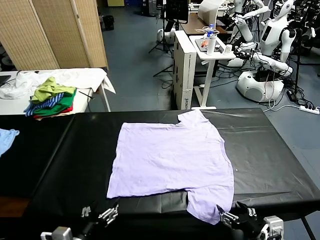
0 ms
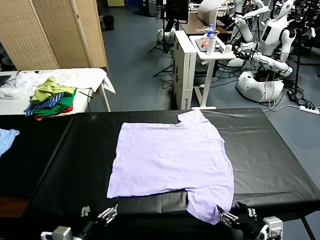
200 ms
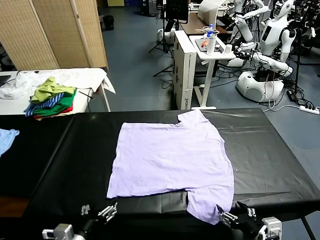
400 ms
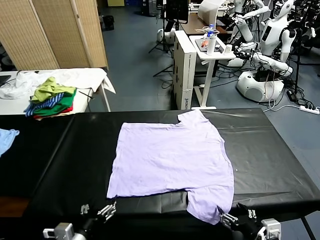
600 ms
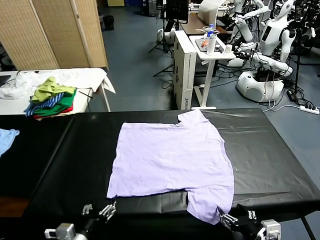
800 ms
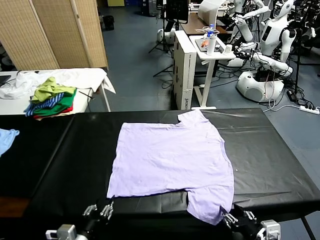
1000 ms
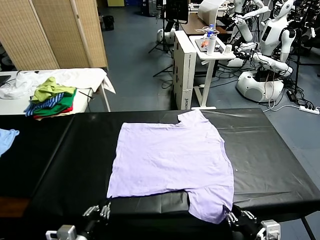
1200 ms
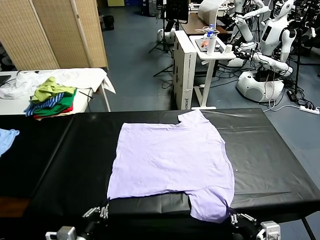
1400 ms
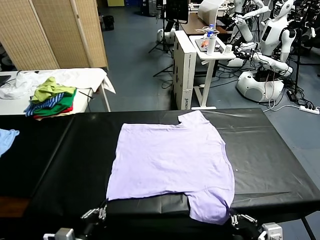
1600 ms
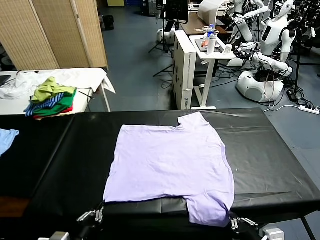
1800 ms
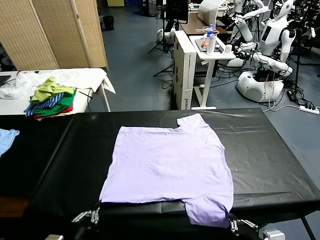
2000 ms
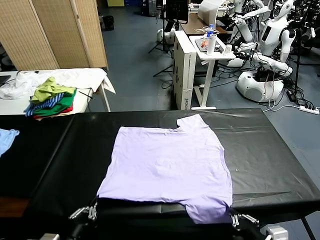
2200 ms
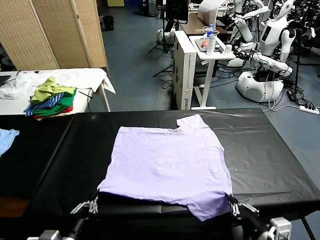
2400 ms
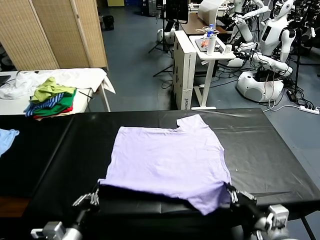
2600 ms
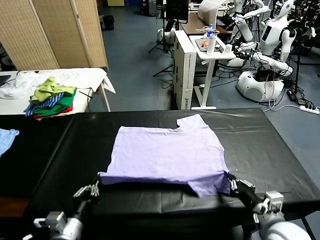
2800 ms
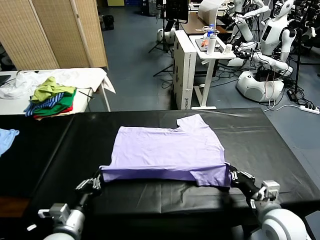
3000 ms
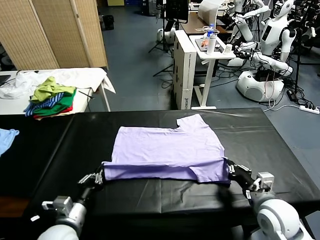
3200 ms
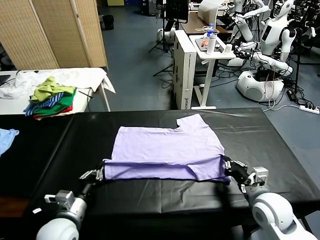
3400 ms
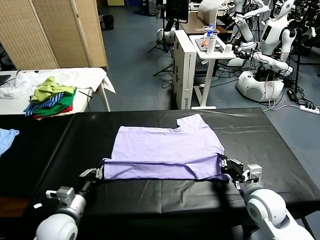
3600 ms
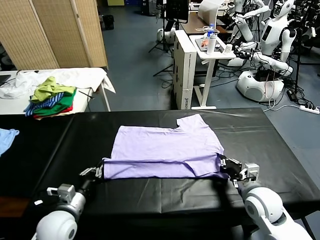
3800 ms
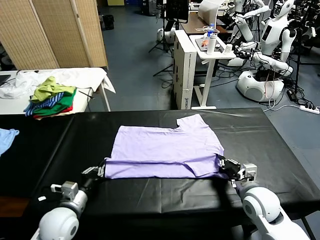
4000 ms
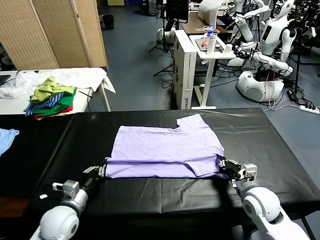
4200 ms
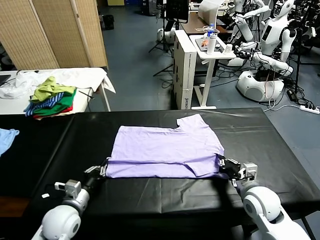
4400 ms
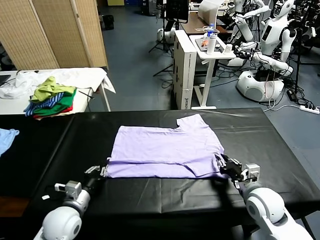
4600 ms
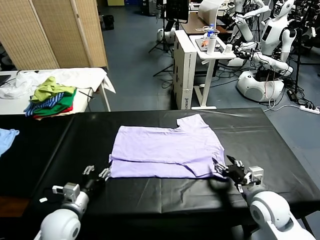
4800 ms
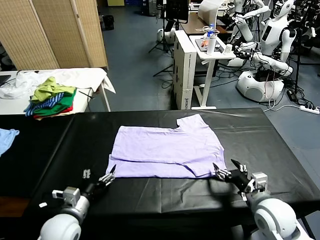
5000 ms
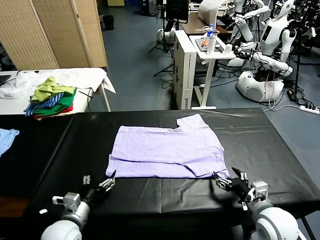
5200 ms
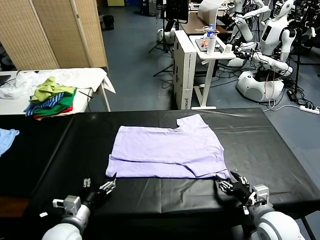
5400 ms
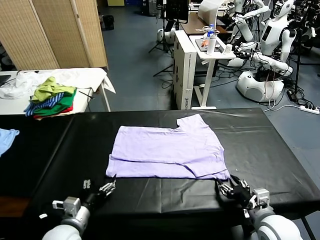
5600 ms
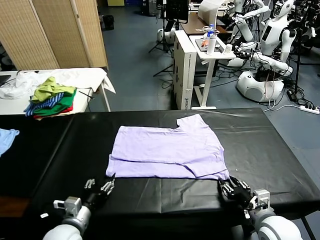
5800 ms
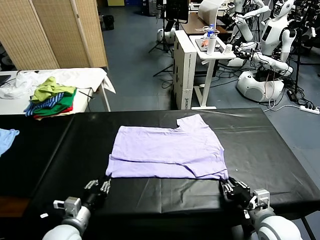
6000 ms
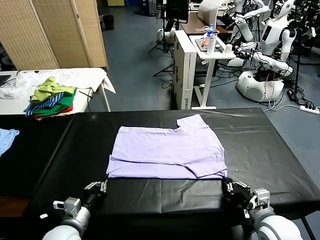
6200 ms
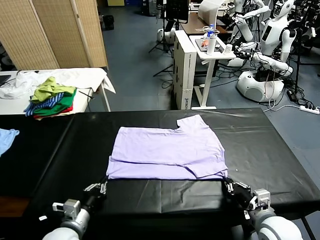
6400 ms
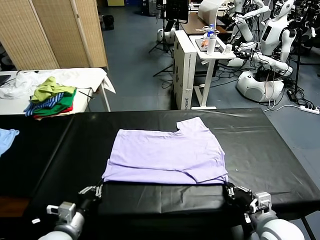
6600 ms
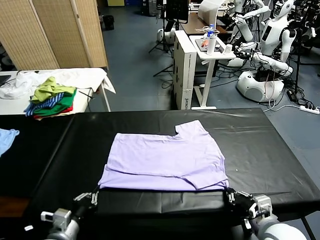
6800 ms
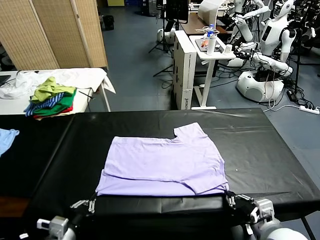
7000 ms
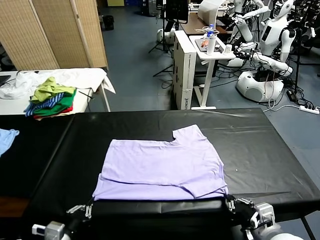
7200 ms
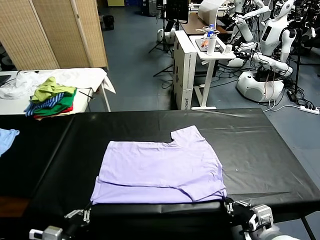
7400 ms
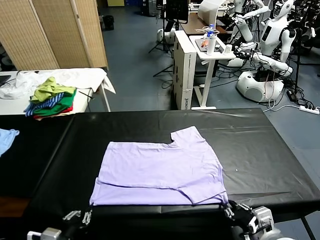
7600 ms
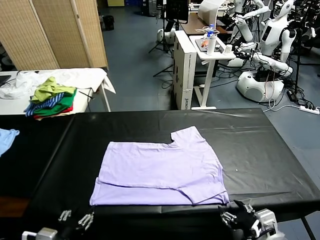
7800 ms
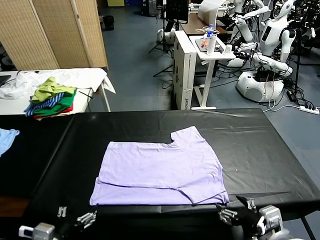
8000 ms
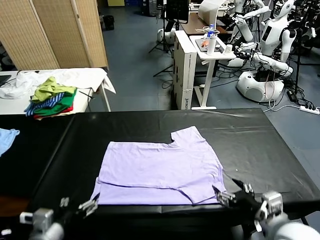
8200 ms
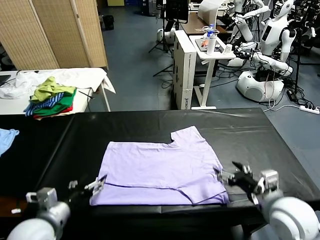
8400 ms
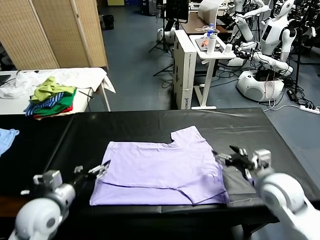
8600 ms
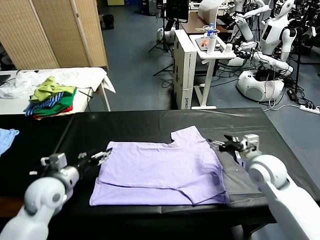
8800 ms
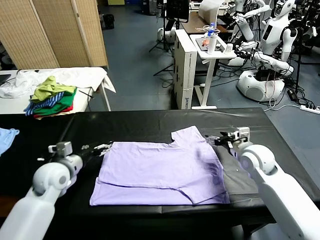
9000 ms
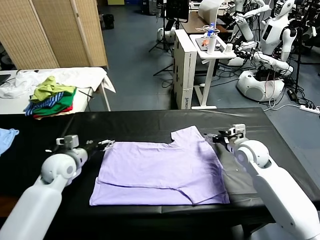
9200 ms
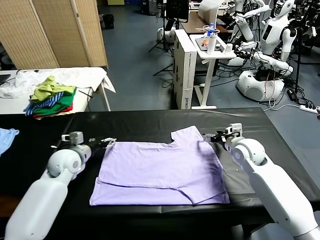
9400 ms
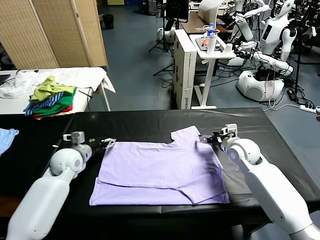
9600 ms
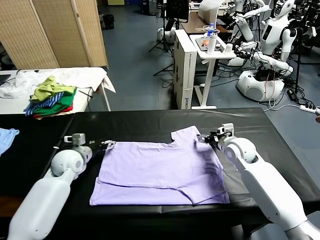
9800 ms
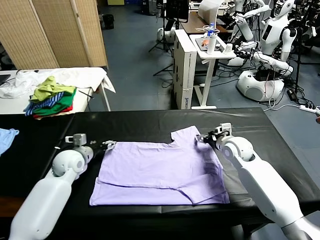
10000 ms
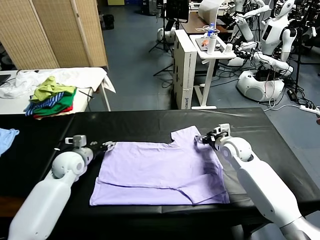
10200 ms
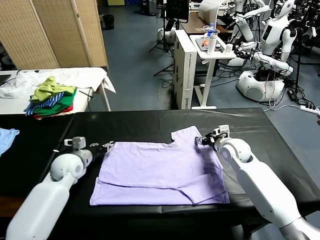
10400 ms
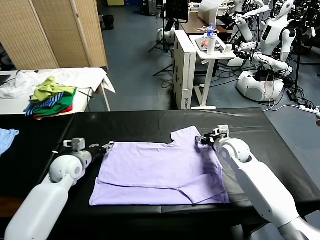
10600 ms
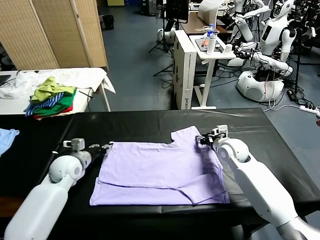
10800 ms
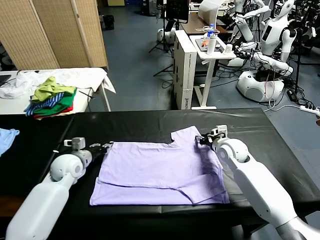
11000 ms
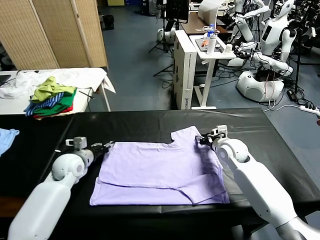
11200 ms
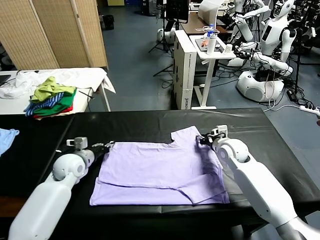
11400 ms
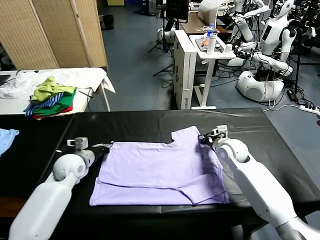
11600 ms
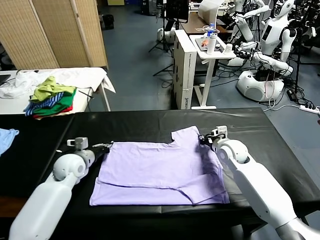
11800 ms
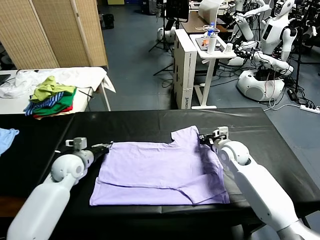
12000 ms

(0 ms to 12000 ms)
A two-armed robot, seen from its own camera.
Task of the whole recording: fold and organize the clothes.
Step, 0 ms - 1800 ms: use both grippers simultaneously to clamp the lower edge of the clothing fabric.
Step, 2000 ms - 4600 ms: use both grippers to drag the lower edge of the fabric forward and fold it over the upper edge.
Step, 4800 ms - 7600 ms: Drag the clothes downward with both gripper.
Step, 8000 ms - 12000 ms: use both grippers simultaneously to clamp the upper edge of the clothing fabric.
1600 ms - 3000 ms: The left gripper moves forward, some 10 cm. Meanwhile the right gripper heads forward, covering about 20 cm.
3000 ms - 4400 ms: The right gripper opens. The left gripper shifts about 5 cm forward.
4400 ms - 6000 ms: The left gripper moves about 5 cm, and opens, then closes again. Meanwhile the right gripper moves backward, roughly 5 cm, and closes its fingers.
6000 ms - 7600 ms: The left gripper shifts about 10 cm backward and upward, and opens up. The right gripper heads upward and backward, covering roughly 10 cm, and opens up.
7600 ms - 9000 ms: Both grippers travel together forward, roughly 30 cm. The left gripper opens up.
9000 ms - 10400 ms: The right gripper changes place by about 5 cm, and closes its fingers; the left gripper closes up.
10400 ms - 12000 ms: The right gripper closes up. Meanwhile the left gripper closes its fingers.

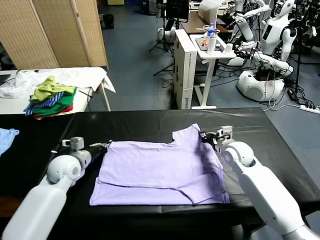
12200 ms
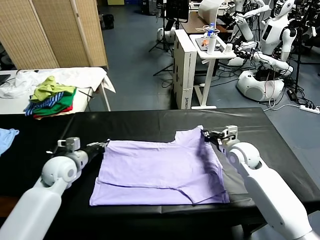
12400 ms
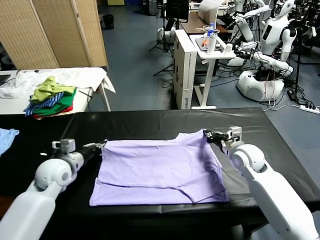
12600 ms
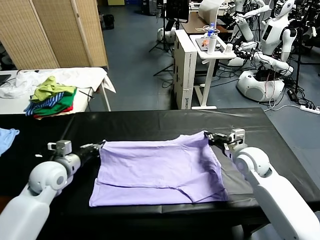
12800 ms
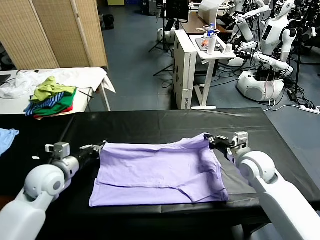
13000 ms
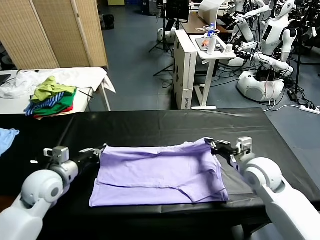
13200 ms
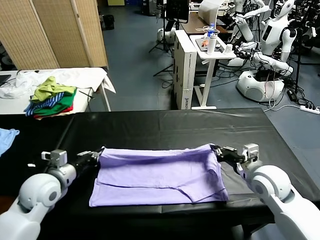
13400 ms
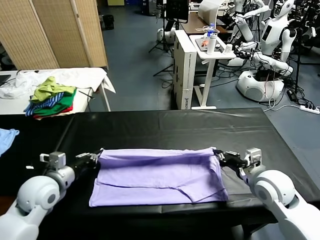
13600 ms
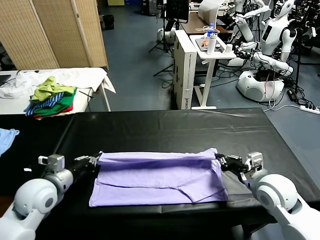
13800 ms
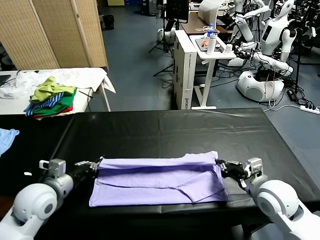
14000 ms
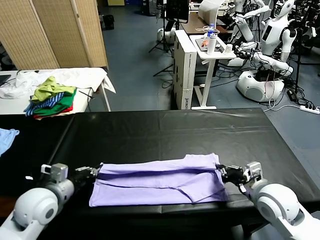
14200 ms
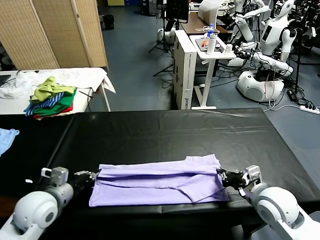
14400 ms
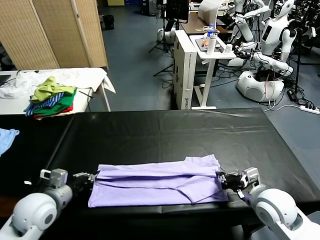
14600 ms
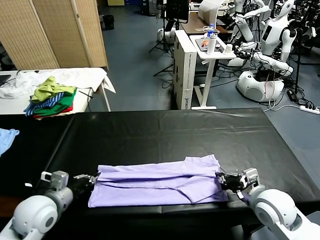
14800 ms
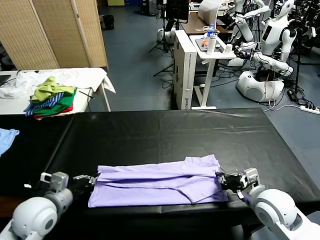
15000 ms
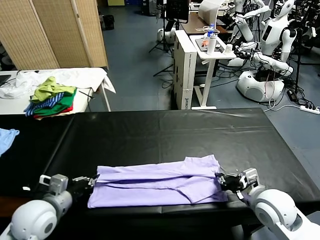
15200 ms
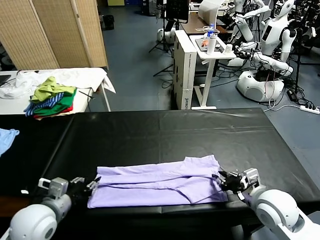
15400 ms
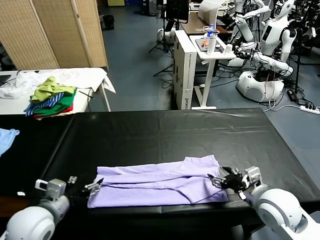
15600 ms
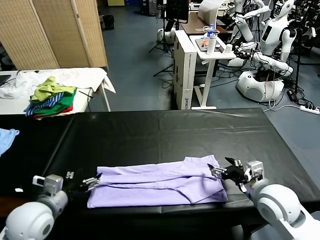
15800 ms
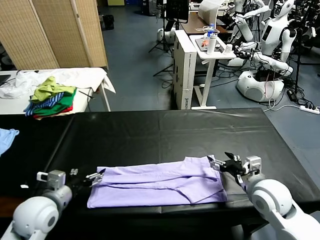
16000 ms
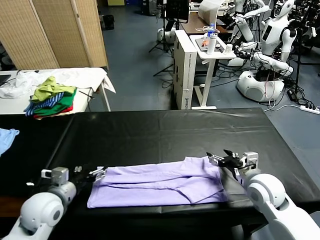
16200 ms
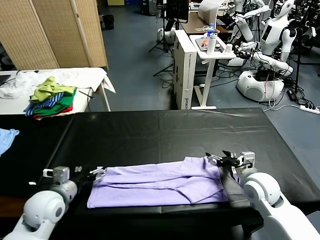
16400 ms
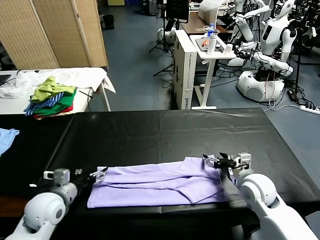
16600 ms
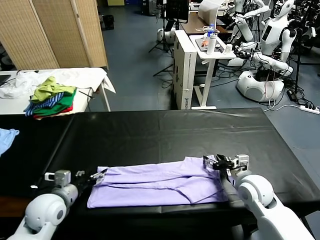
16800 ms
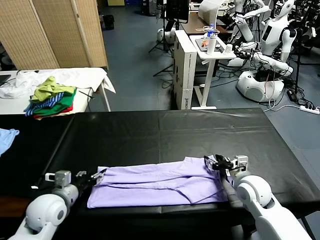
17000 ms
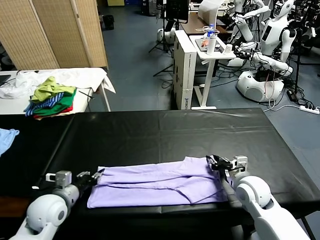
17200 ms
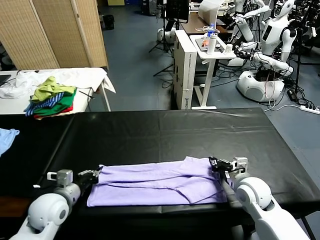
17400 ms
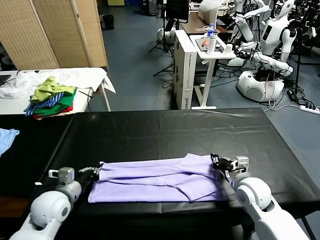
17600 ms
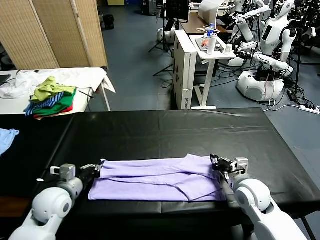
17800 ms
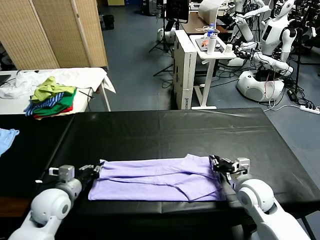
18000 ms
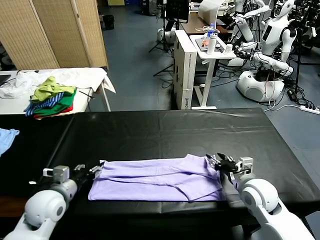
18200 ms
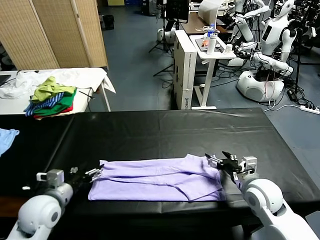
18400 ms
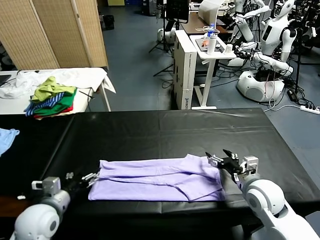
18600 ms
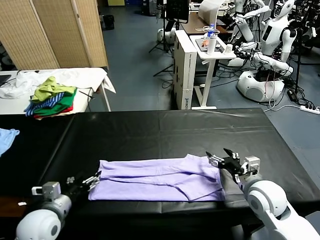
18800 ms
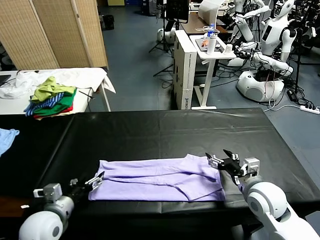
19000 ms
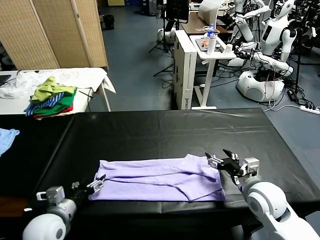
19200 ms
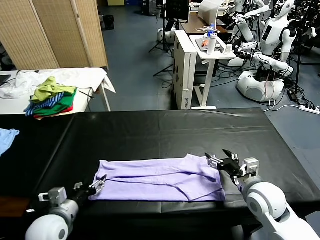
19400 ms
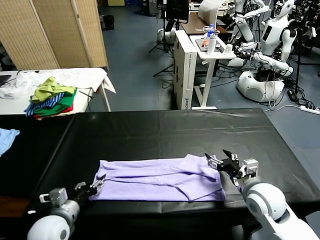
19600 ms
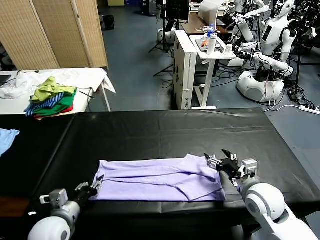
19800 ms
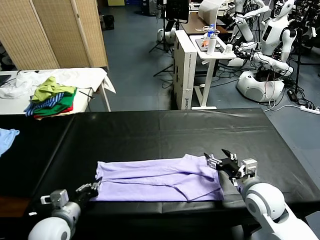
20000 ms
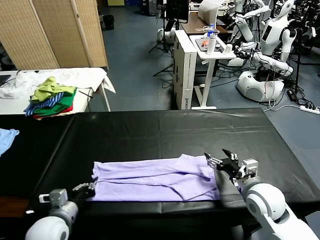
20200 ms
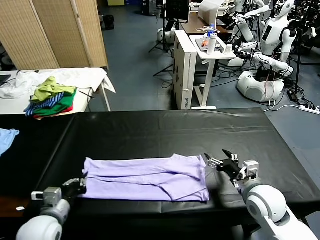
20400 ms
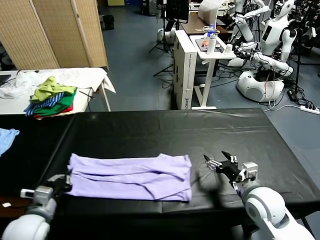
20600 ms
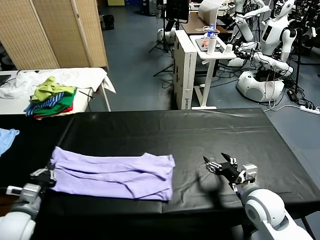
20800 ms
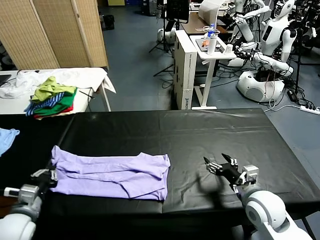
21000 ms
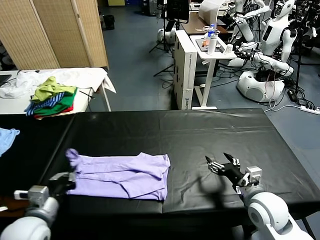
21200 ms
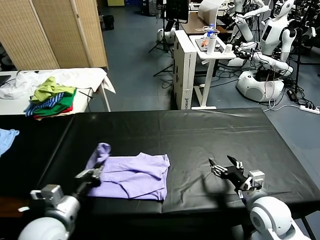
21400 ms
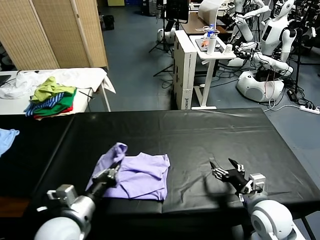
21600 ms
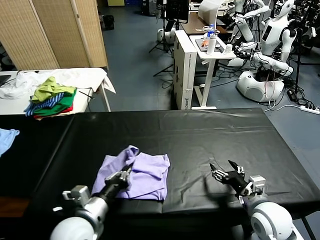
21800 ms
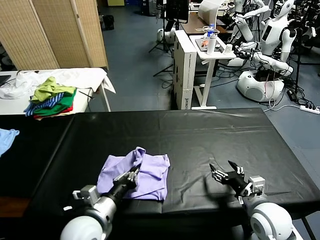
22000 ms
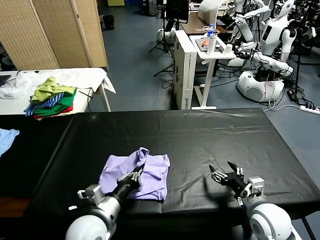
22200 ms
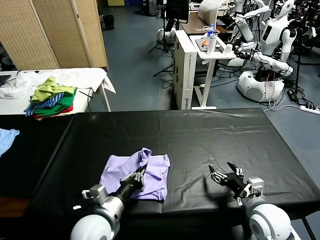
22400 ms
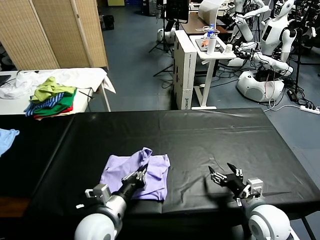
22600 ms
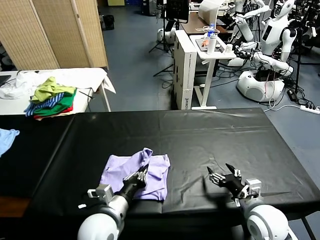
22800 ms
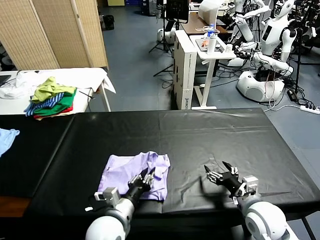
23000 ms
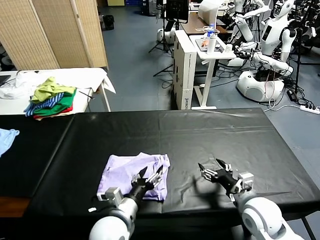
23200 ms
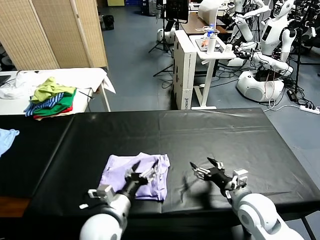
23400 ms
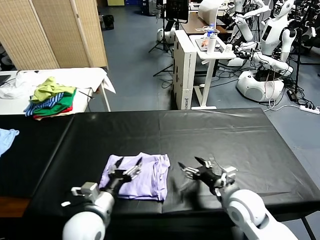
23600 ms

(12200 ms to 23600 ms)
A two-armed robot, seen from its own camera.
Task of the whole recording: fold and organize the clothes.
Step, 12200 ms - 15400 ms: use both grippers to drag the upper edge of the fabric backward and fold it over the lower edge.
Step, 15800 ms - 20000 ms: use the left gripper to clamp the left edge of the fabric.
Step, 20200 ms - 23200 ms: use the left gripper to drag the left edge of the fabric to the left and folds it over the right edge.
12200 ms - 13600 ms: The grippers both shift backward by roughly 10 cm.
13600 ms - 15000 ms: The left gripper goes approximately 5 cm backward.
15000 ms - 16400 ms: The left gripper opens up. The right gripper heads forward, covering about 5 cm, and opens up.
16400 ms - 17800 ms: The left gripper closes up. Meanwhile the right gripper closes.
17800 ms - 19400 ms: The left gripper goes some 5 cm backward, and opens up. Meanwhile the right gripper opens up.
19400 ms - 20800 ms: The left gripper travels to the left by roughly 10 cm, and closes.
20800 ms - 22200 ms: The left gripper is displaced to the right by some 20 cm.
22200 ms - 23600 ms: The left gripper opens; the right gripper goes roughly 10 cm to the left.
